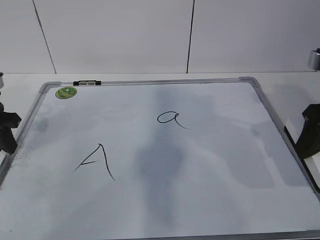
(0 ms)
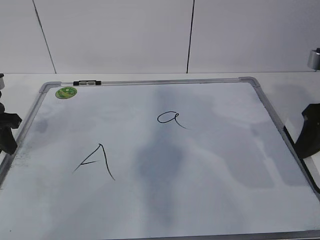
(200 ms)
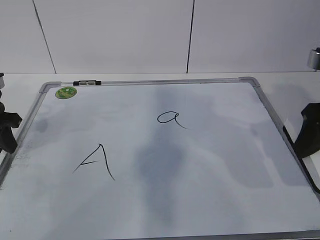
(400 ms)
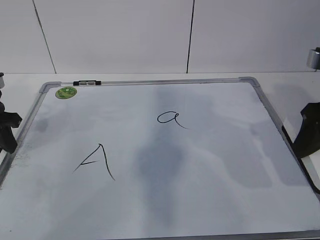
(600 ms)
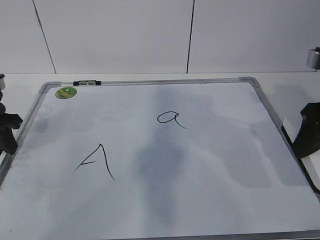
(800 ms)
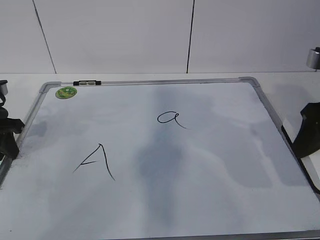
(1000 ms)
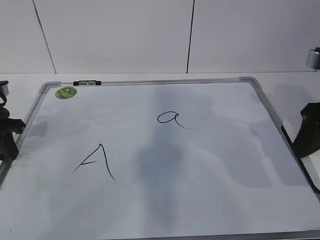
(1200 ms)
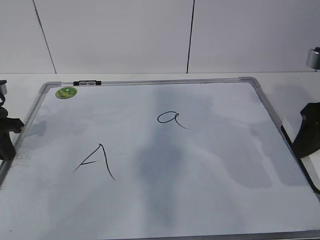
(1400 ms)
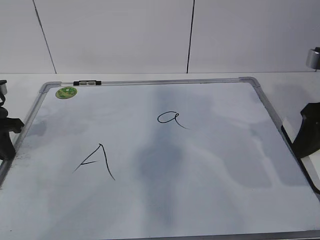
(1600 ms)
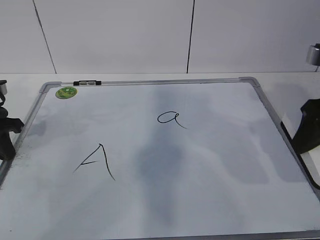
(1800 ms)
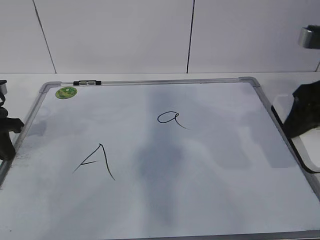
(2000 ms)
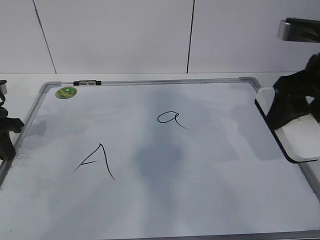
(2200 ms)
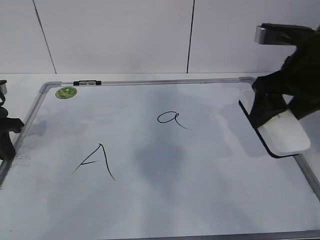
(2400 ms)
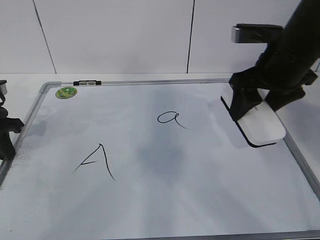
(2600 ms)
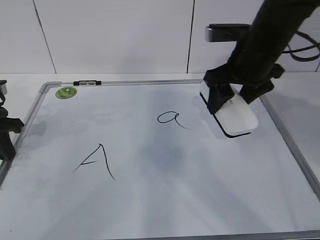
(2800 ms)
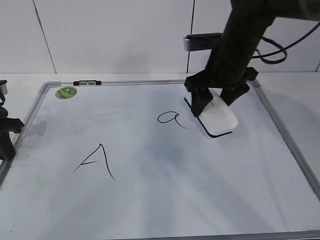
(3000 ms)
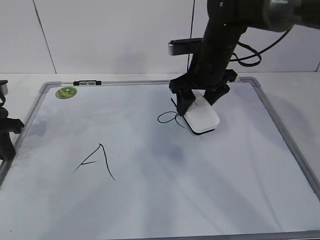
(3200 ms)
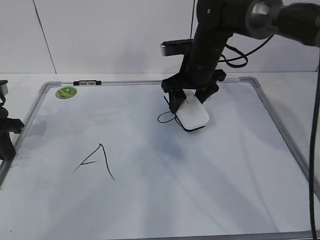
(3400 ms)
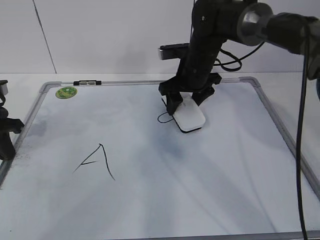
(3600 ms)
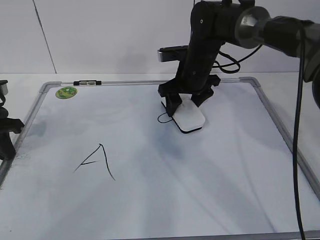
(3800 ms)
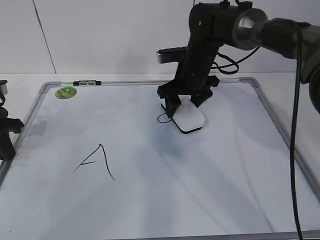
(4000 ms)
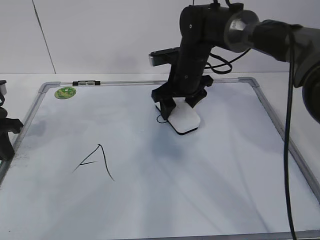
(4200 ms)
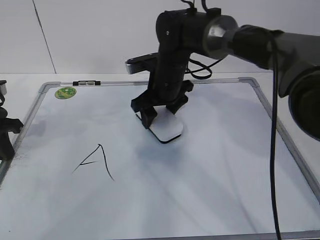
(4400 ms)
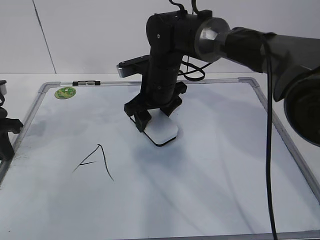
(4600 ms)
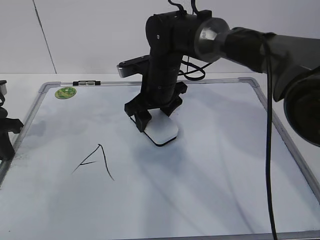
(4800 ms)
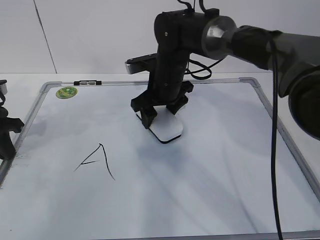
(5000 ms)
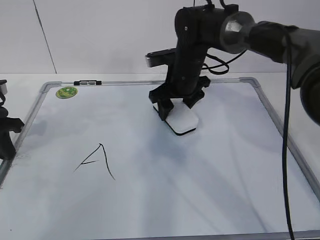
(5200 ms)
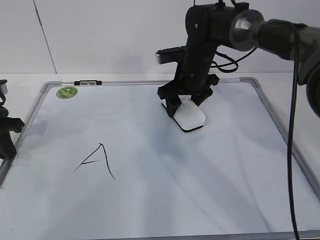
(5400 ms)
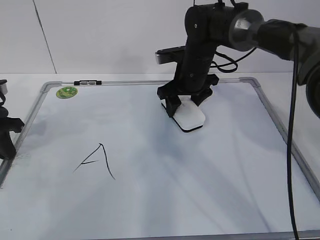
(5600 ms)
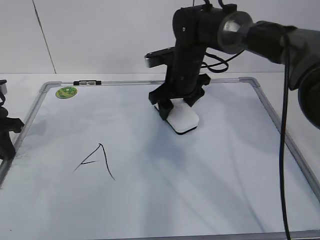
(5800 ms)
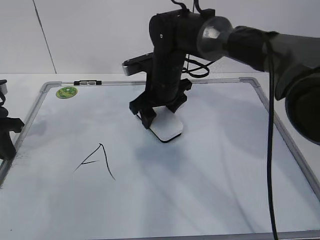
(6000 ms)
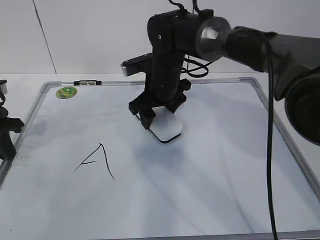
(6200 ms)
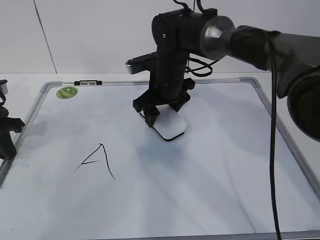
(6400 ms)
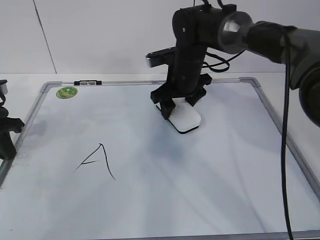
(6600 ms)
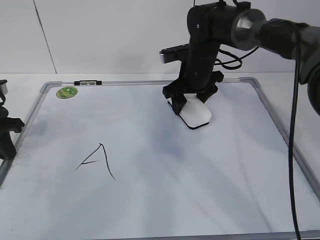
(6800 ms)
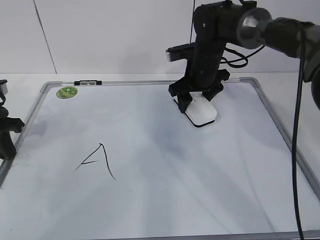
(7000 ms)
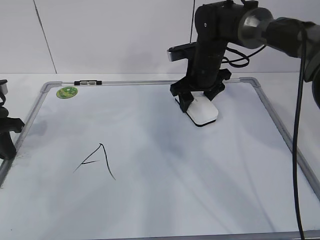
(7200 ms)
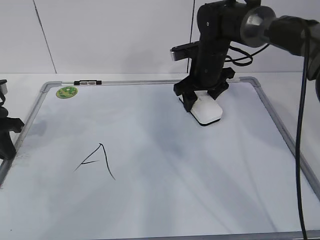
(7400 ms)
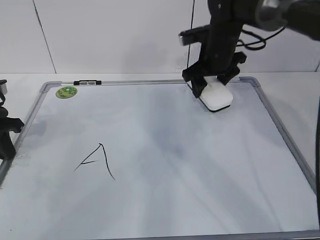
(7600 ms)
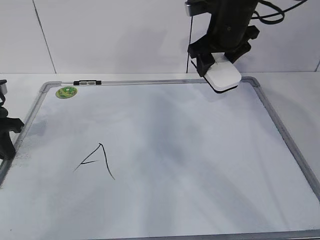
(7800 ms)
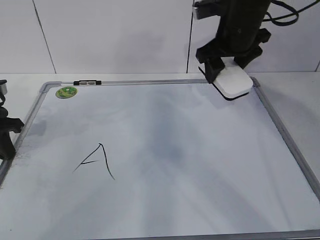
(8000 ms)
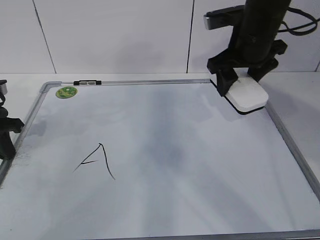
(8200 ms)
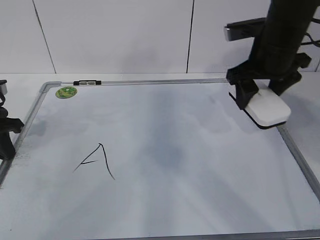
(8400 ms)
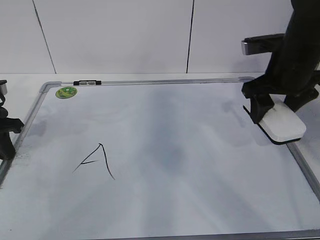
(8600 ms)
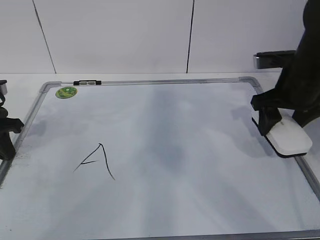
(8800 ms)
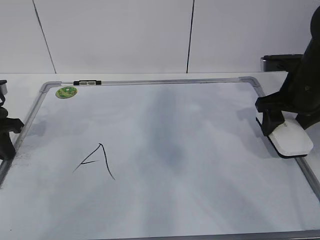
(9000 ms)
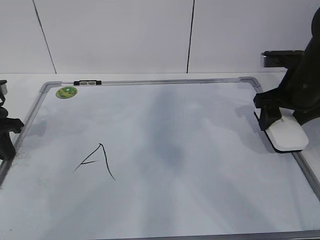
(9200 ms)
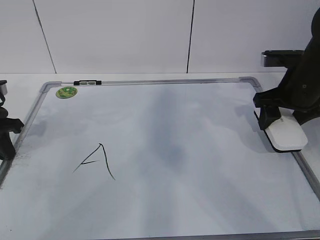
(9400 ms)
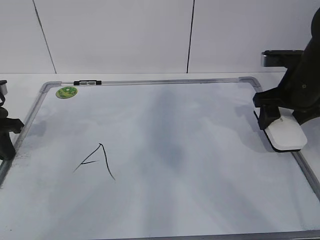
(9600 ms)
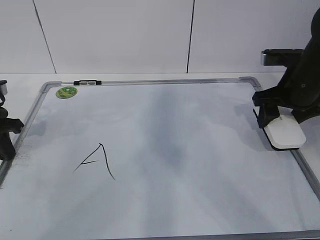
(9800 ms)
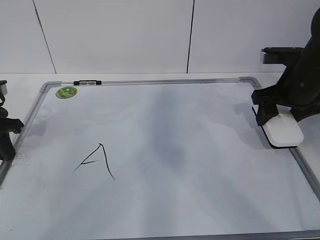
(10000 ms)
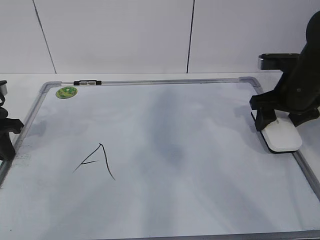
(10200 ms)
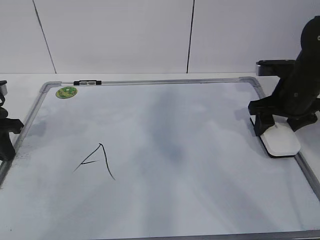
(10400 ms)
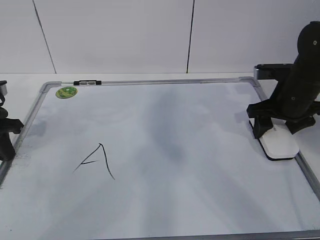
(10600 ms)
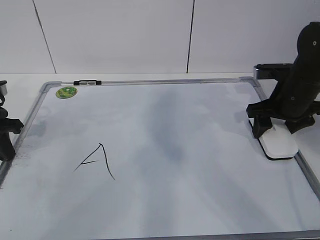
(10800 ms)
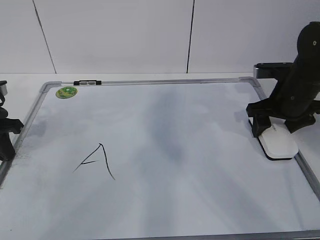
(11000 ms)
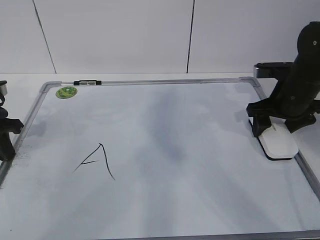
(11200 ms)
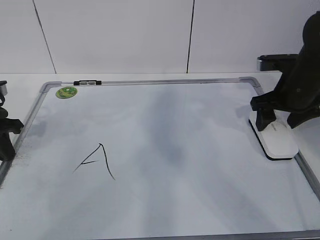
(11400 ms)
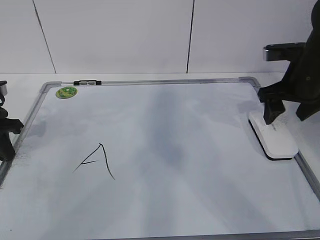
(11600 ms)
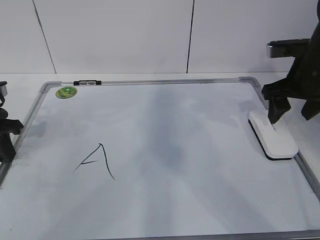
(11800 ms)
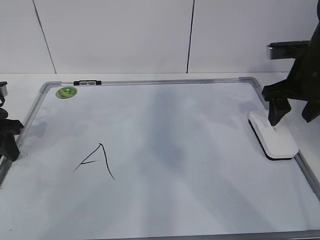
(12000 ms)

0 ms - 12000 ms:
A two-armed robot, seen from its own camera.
Task of the whole recording: pick up the eraser on the blackboard and erase the letter "a".
Step, 0 ms - 4000 ms: Erase the letter a with your right hand.
Step, 4200 ms - 7000 ms: Put down the eraser with your right hand.
0 ms - 1600 ms: The left gripper closes up.
1600 ms - 3000 ms: The right gripper heads forward and to the left, covering about 20 cm.
3000 ms - 4400 ms: The right gripper moves to the left and downward, approximately 10 cm.
4400 ms - 6000 ms: The right gripper goes to the right and returns, about 5 cm each way.
6000 ms - 7600 ms: The right gripper heads to the right and upward, covering some 10 cm.
7600 ms - 9000 ms: The right gripper goes roughly 15 cm to the right and backward.
9000 ms - 10400 ms: There are only small adjustments of the grippers.
10400 ms - 12000 ms: The right gripper ends up some 5 cm from where it was.

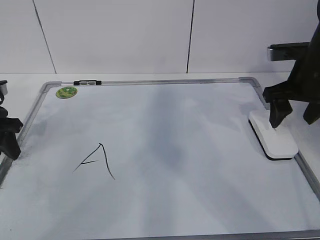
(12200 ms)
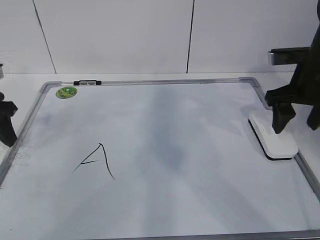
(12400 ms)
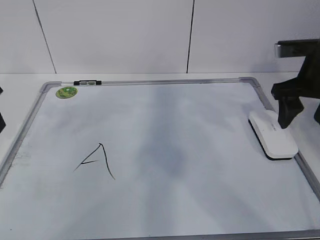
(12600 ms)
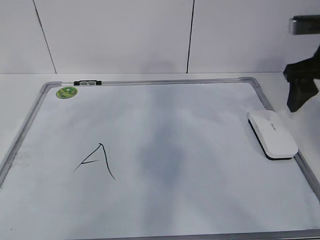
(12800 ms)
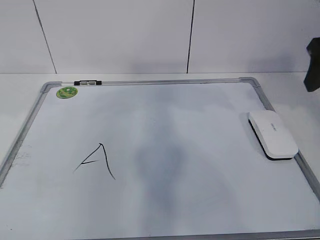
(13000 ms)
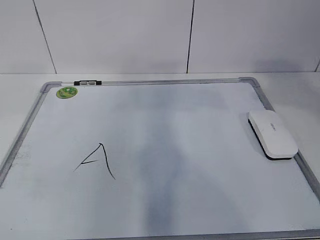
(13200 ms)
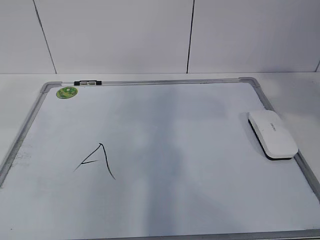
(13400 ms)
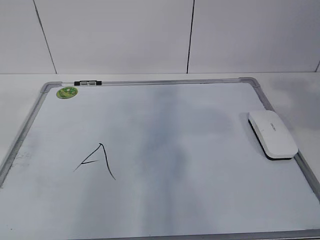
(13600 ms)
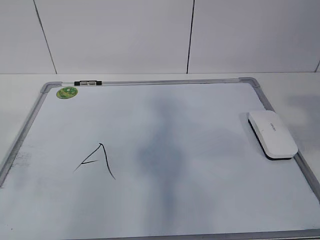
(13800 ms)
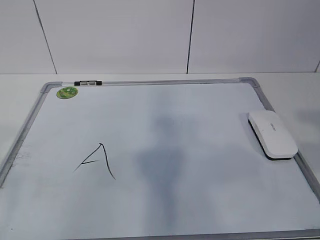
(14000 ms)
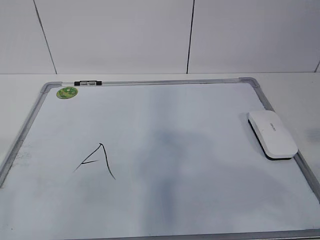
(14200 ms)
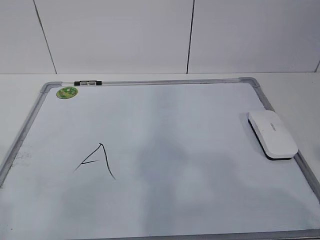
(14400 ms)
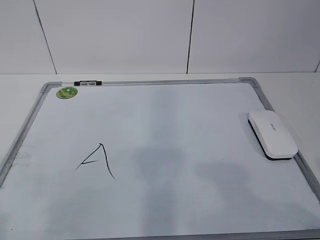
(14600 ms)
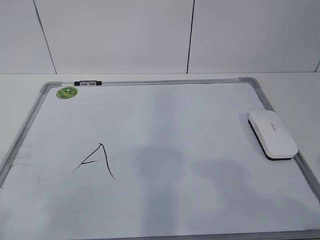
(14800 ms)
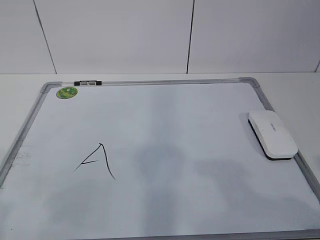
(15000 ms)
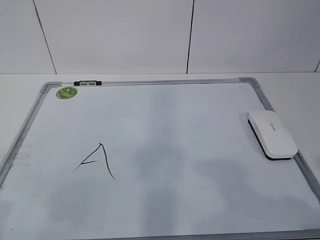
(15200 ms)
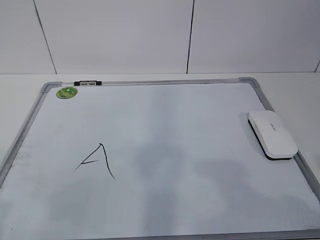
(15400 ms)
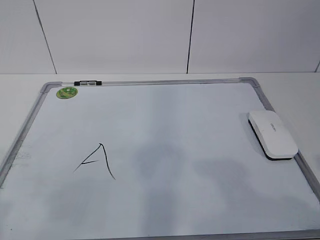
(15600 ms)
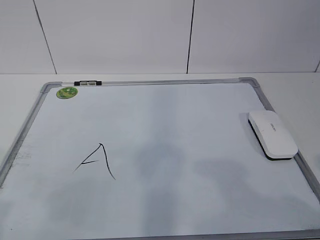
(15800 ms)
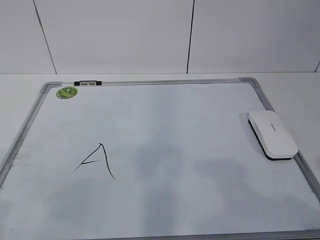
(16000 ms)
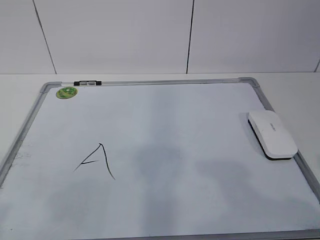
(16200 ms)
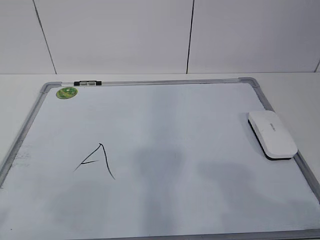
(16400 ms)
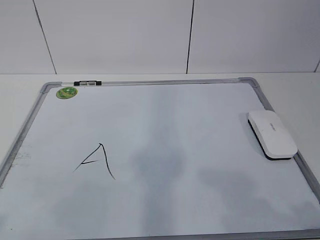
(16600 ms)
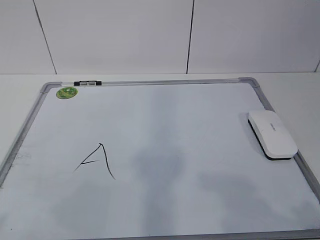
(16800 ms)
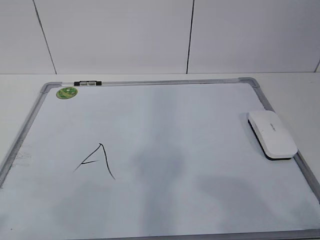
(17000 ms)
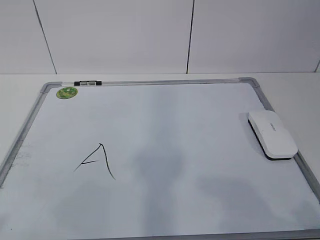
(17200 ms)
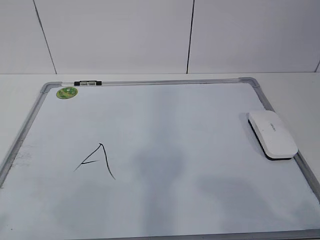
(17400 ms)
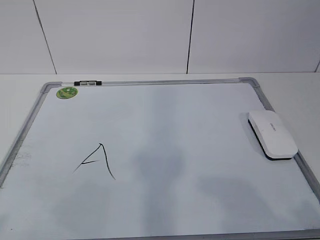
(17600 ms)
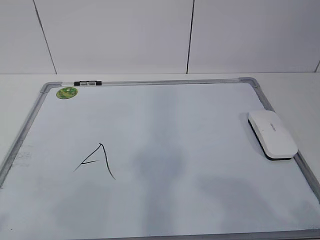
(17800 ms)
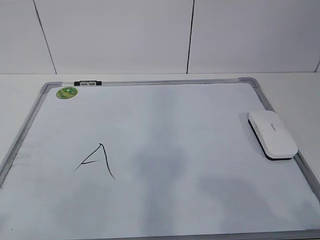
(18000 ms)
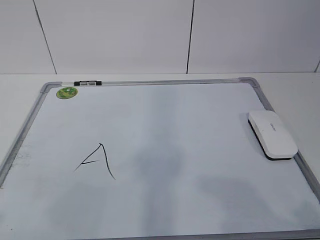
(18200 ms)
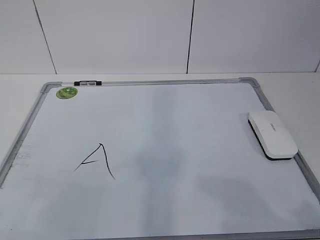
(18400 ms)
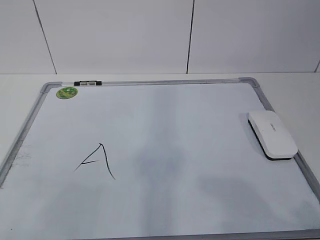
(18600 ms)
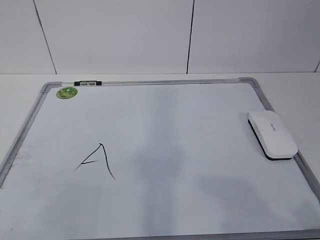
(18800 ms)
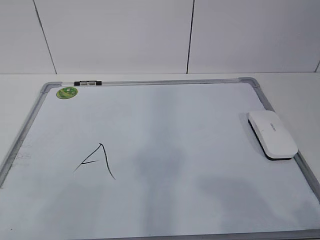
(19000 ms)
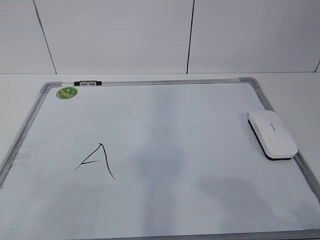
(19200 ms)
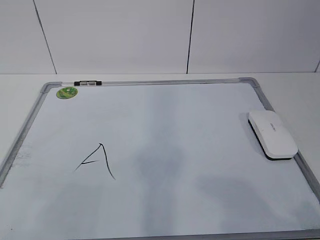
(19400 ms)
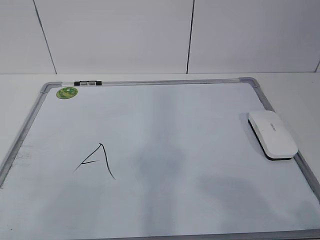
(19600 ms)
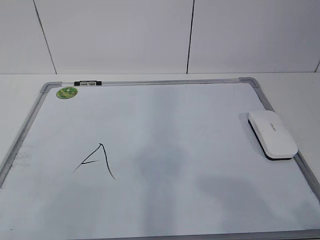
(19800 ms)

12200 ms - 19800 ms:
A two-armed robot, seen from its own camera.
Task of the whole recording: pick up the eraser on the blackboard and erase the letter "a".
12200 ms - 13800 ms: Both grippers move backward and upward, roughly 30 cm.
13800 ms - 15200 ms: The right gripper goes about 15 cm downward and backward, while the left gripper is displaced downward by some 5 cm.
16800 ms - 18200 ms: Both grippers stay put.
18200 ms - 19800 ms: Neither gripper changes place.

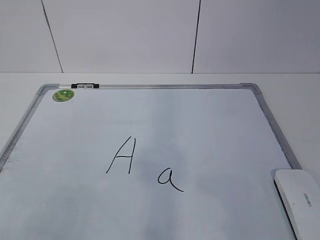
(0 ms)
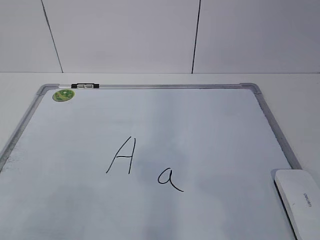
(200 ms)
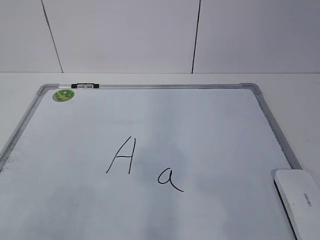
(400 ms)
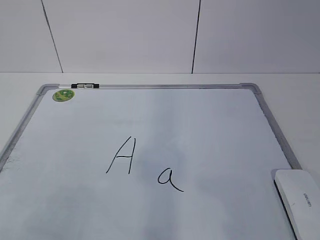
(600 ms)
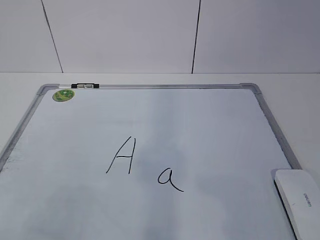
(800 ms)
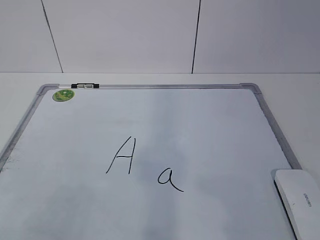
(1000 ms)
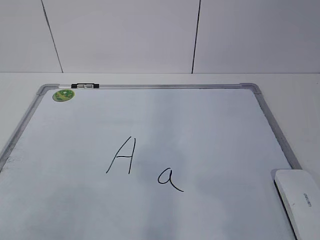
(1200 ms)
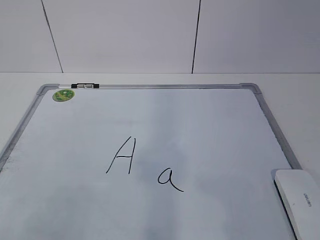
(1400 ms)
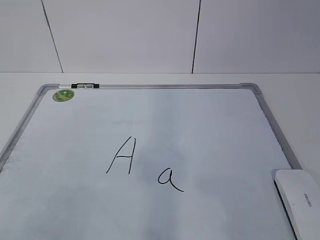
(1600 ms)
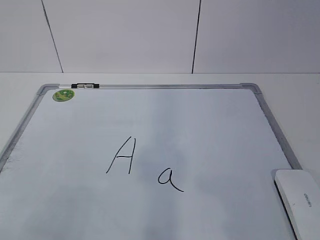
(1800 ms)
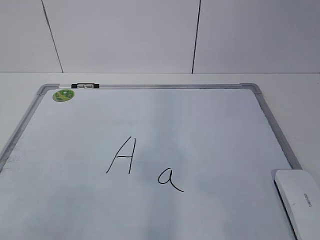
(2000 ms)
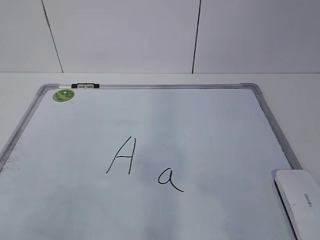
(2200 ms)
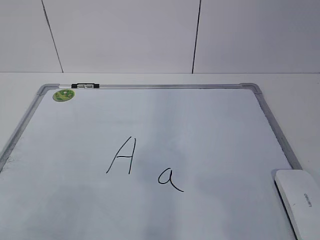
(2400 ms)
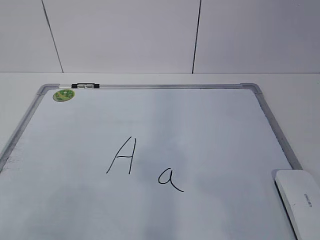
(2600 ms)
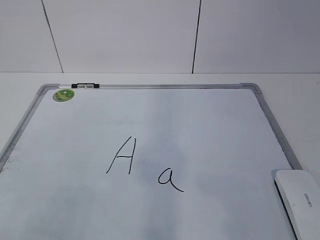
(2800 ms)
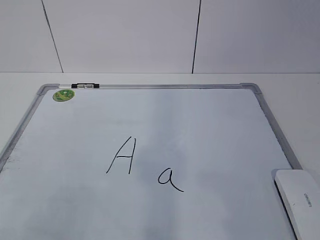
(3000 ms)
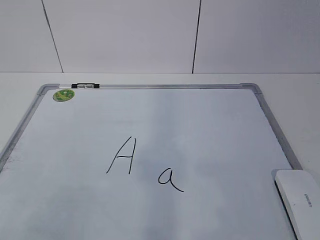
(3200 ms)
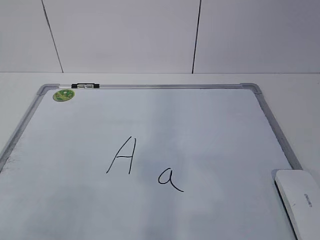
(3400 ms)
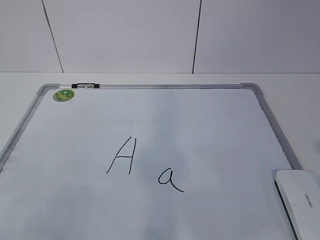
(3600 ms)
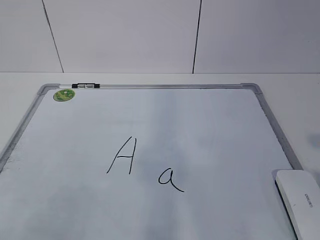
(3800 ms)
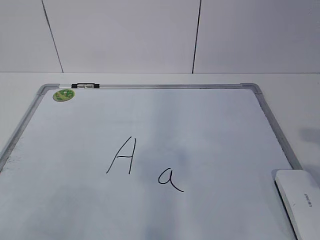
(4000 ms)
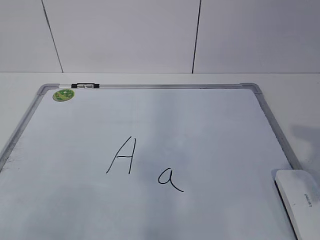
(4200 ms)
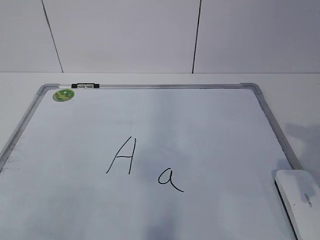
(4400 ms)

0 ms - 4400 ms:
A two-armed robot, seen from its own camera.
Task of the whole recording: pick up the eraser on the blackboard and erase the letter "a".
1400 ms - 3000 ms: Both grippers stay put.
3000 ms - 4400 ms: The right gripper is displaced forward by approximately 15 cm, and opens.
